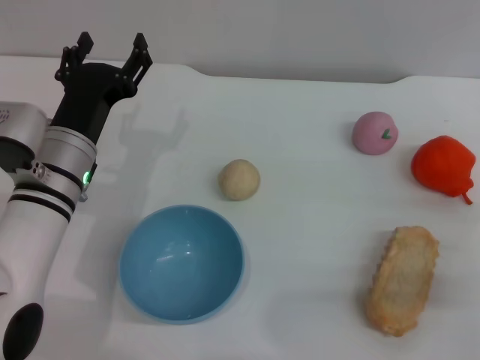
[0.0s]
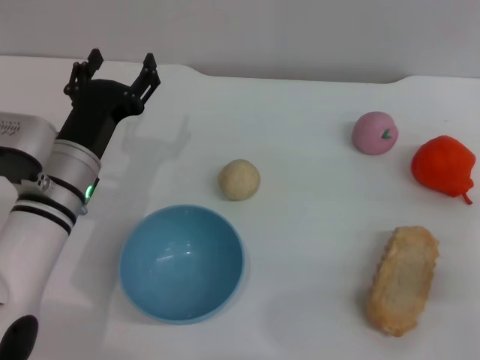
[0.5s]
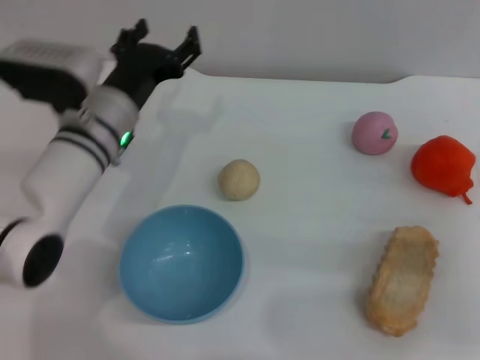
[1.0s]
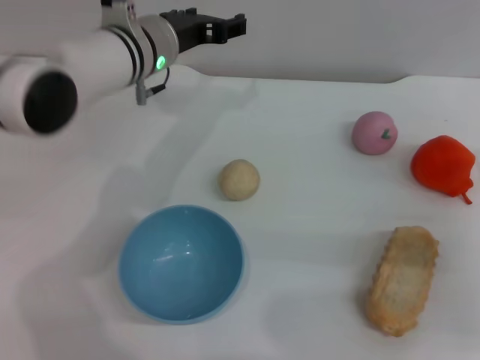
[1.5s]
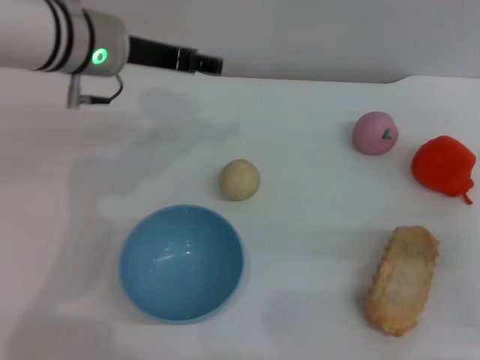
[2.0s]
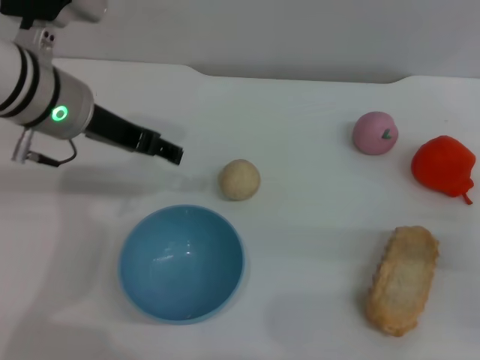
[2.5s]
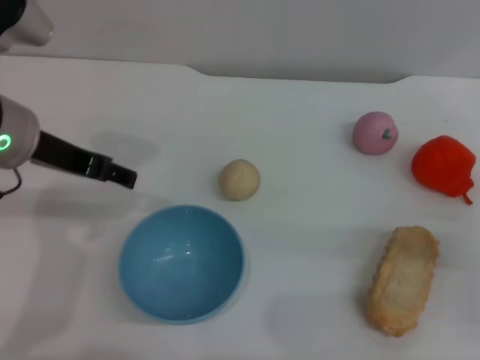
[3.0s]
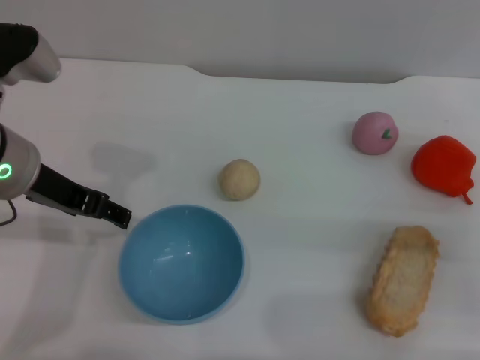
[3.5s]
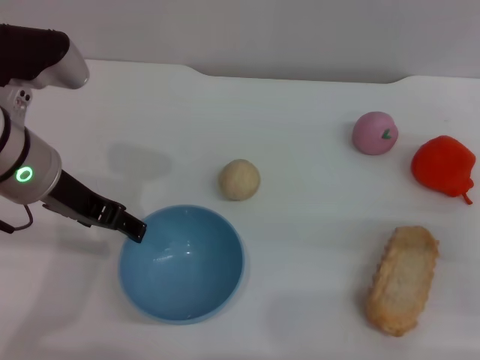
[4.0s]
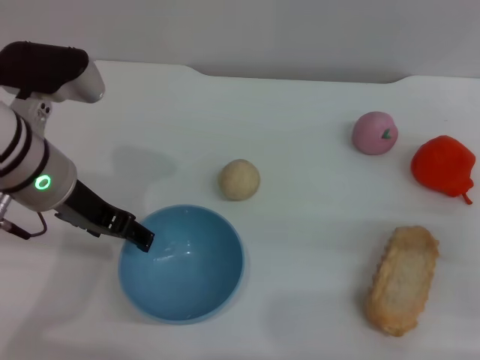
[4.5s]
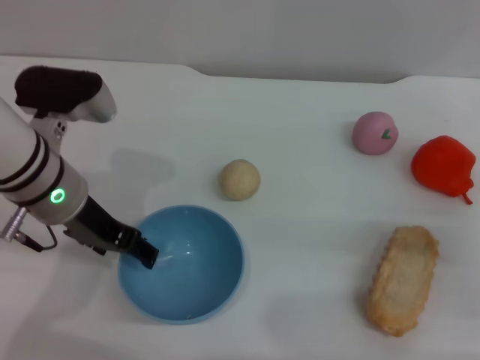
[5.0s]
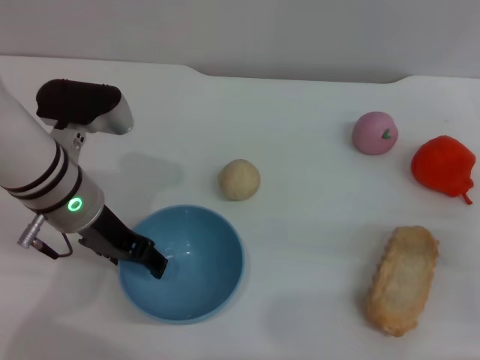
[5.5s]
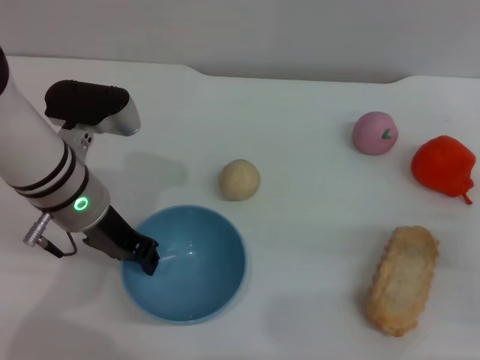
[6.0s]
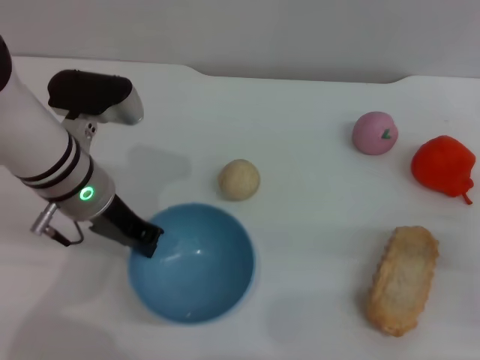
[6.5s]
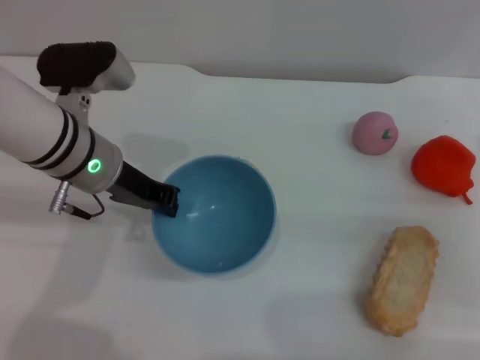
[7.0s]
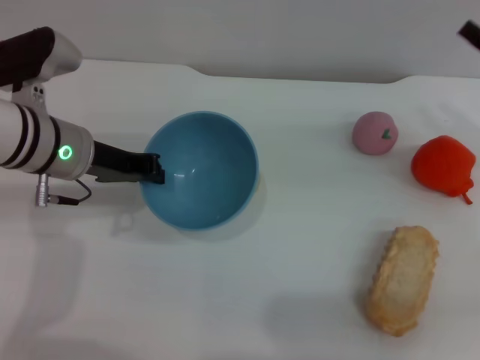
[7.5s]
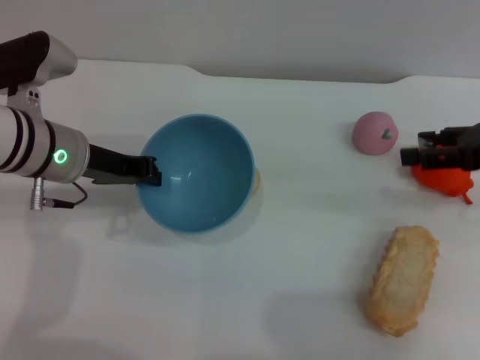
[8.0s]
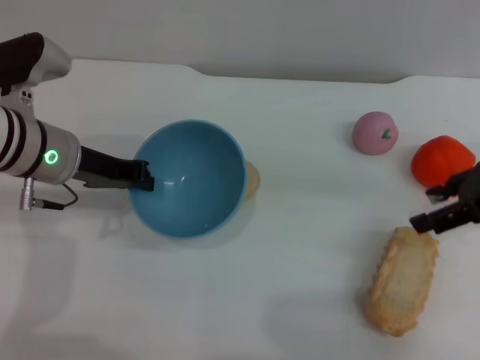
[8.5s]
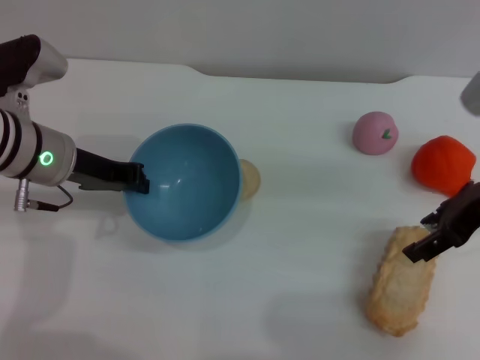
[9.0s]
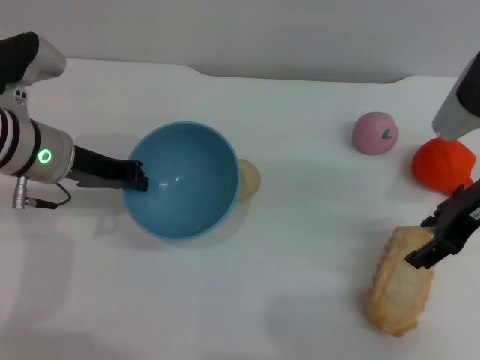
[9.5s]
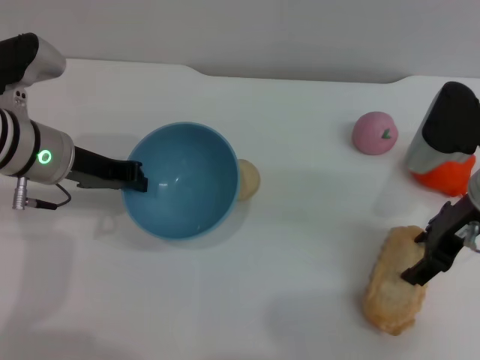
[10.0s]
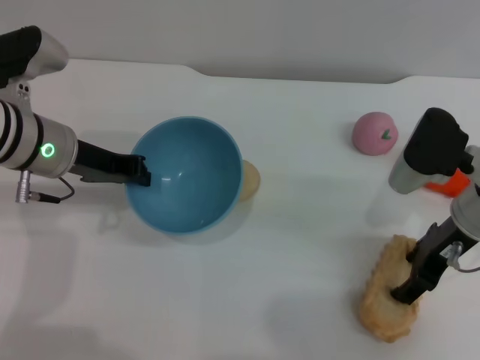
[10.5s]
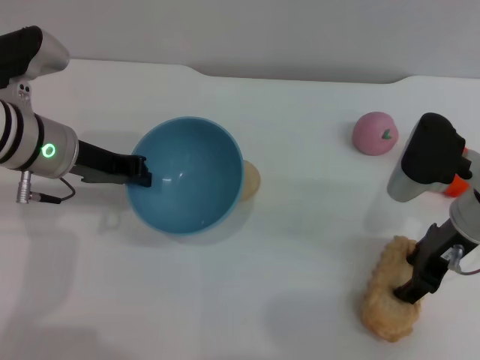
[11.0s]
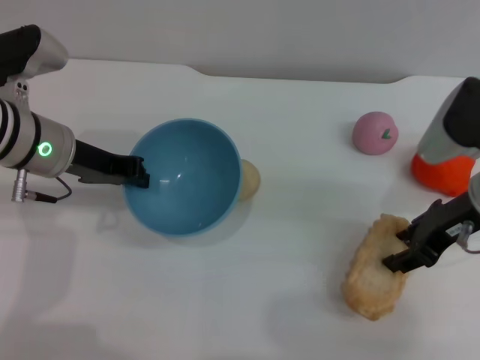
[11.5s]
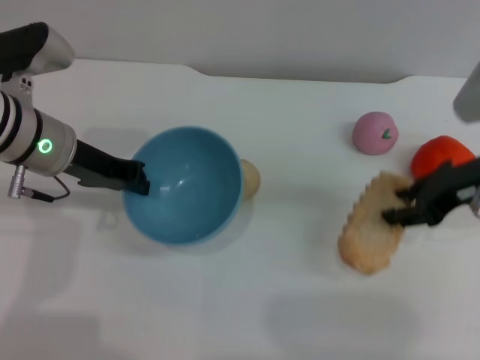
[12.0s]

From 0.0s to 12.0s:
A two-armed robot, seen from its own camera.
Task of the whole recording: put the bread into the blue bowl and pour it out repeatedly.
Step, from 0.0s to 7.5s: Pick up the bowl with the left gripper.
Step, from 8.0s to 12.0s: Pick up the bread with the right gripper.
From 0.0s to 2.0s: The left gripper heads upward and forward, covering some 15 cm.
From 2.0s to 4.0s: The left gripper goes about 10 cm backward.
From 4.0s to 6.0s: The left gripper heads downward, covering approximately 5 cm, and closes its fingers.
From 6.0s to 8.0s: The right gripper heads upward and forward, covering roughly 15 cm. The left gripper closes its fingers.
From 8.0s to 10.0s: The right gripper moves to the left, roughly 10 cm.
From 10.0s to 12.0s: The right gripper closes up.

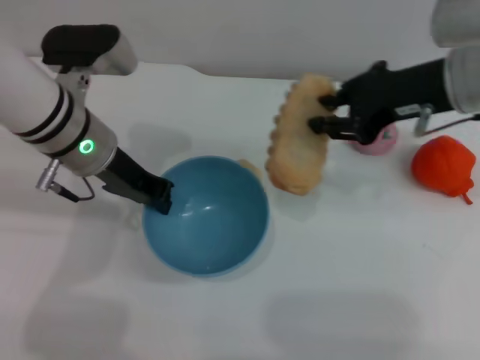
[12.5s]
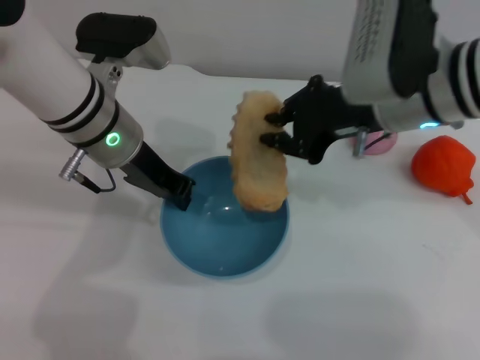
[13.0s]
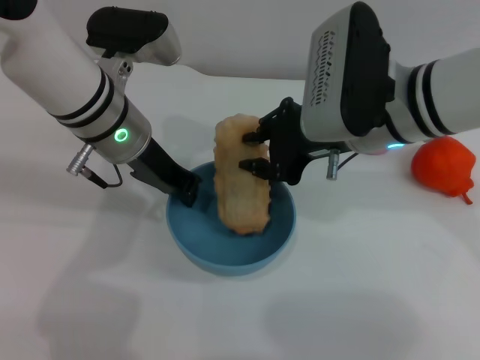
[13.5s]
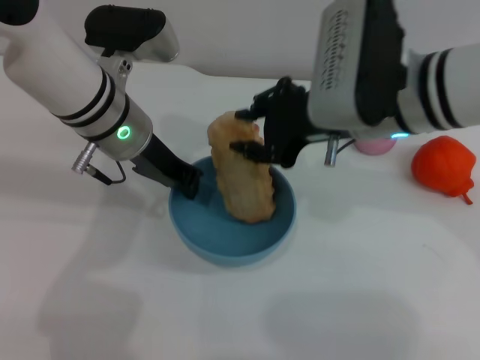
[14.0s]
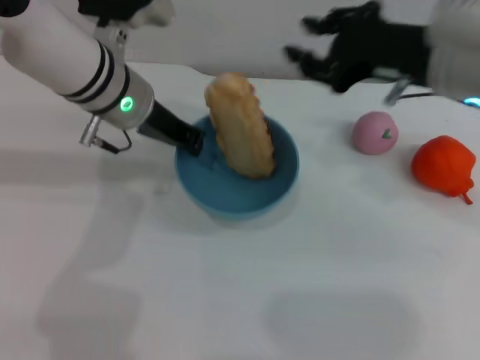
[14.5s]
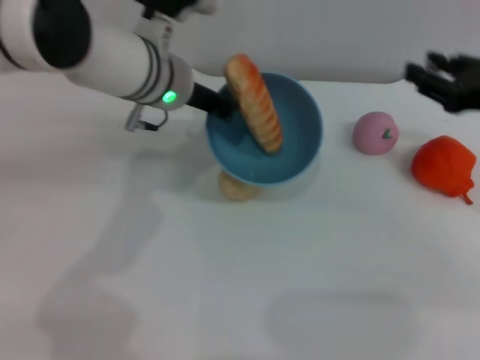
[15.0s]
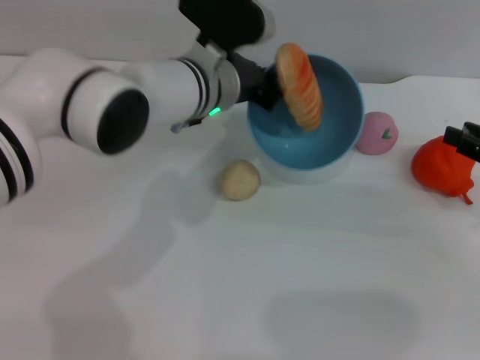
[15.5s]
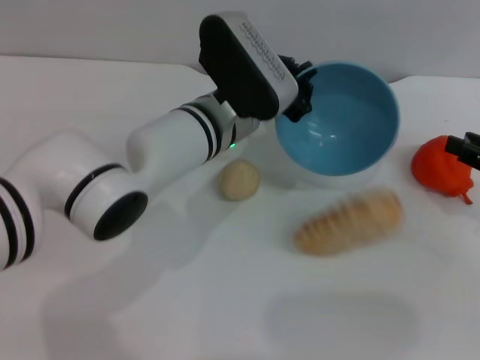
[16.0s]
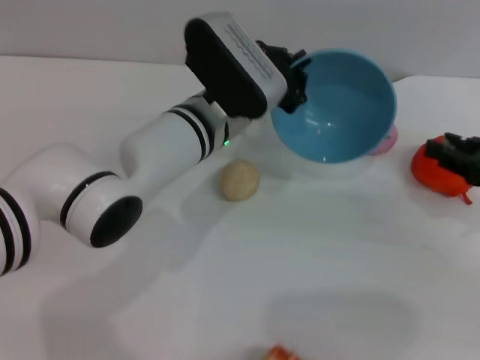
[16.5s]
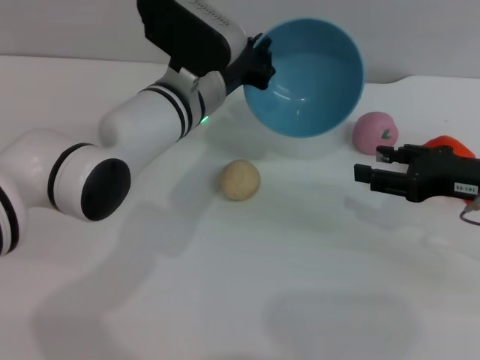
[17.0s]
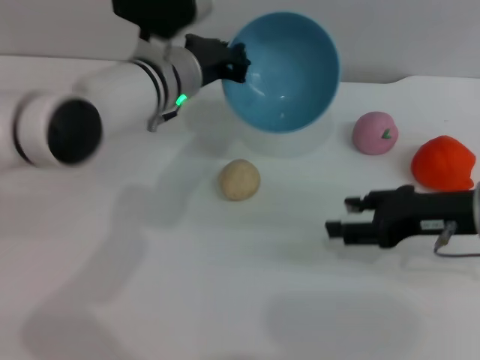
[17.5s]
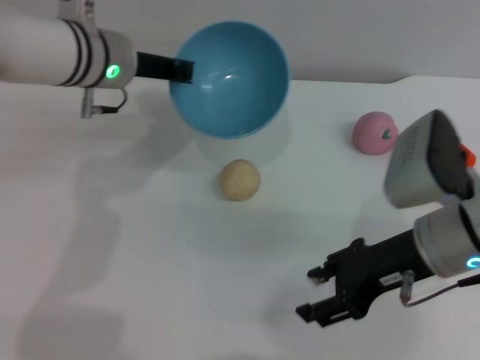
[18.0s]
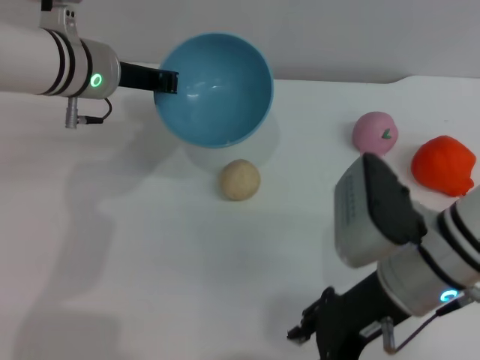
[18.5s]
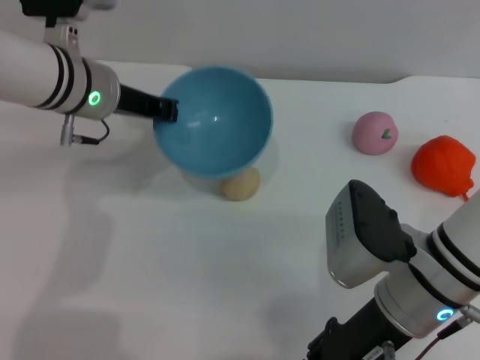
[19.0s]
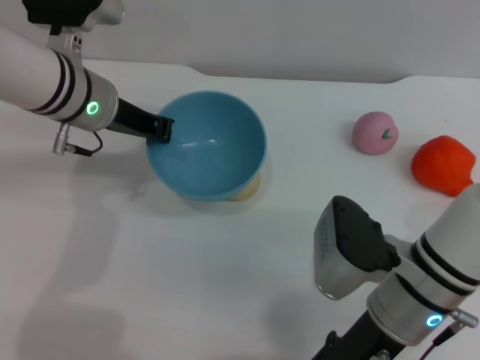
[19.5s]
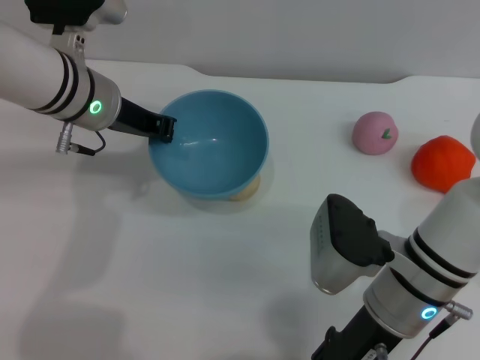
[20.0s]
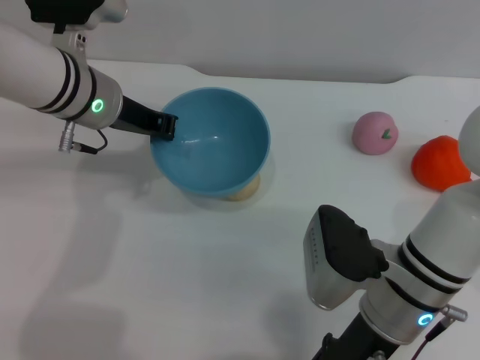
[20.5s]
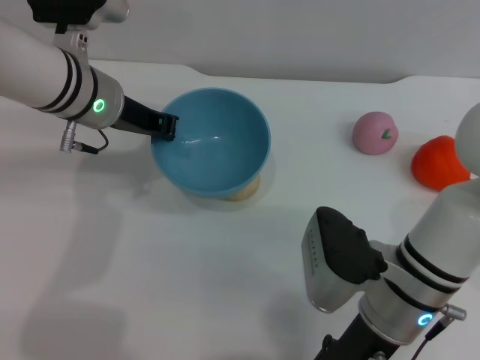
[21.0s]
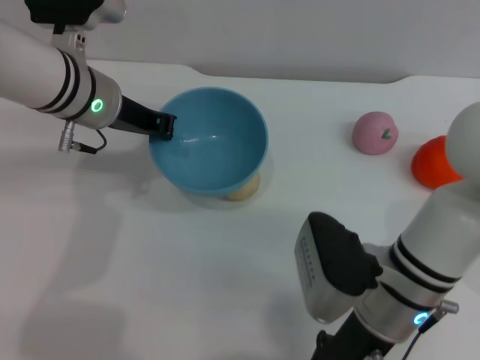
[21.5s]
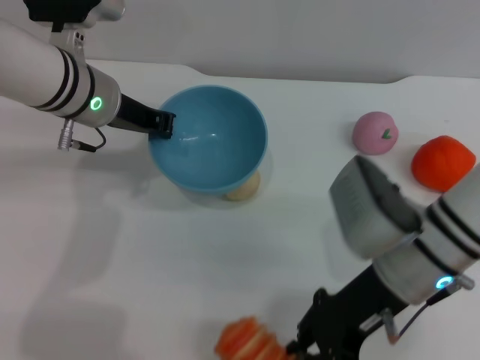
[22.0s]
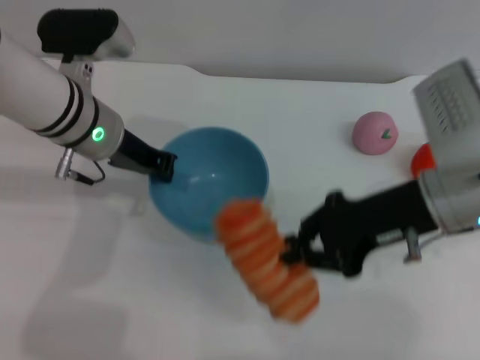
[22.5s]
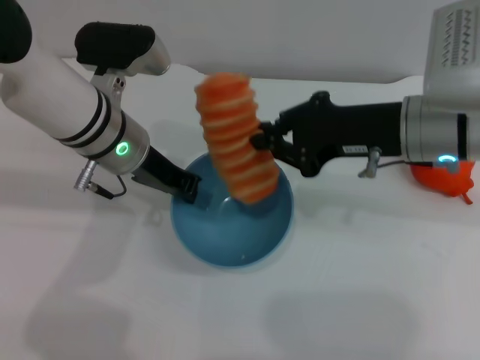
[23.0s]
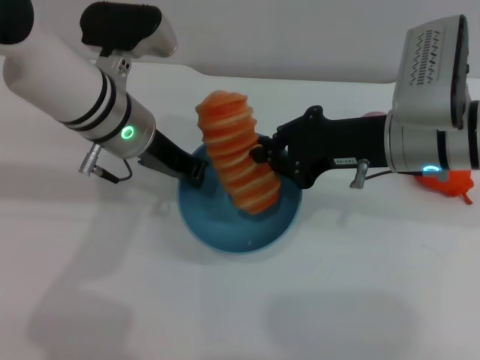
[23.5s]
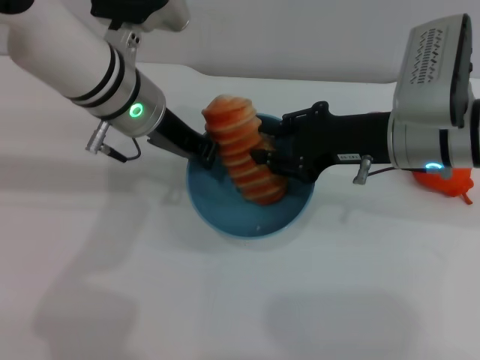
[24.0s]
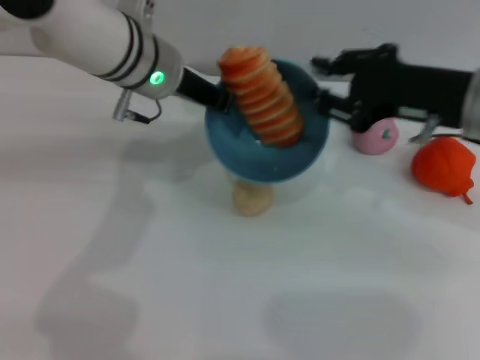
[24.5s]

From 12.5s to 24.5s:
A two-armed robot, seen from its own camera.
Task of the whole recording: put the bread into the blue bowl and pour it out repeatedly.
Step, from 12.5s to 14.0s: Place the bread into the bowl.
Step, from 14.5s to 16.0s: Pour the bread out of the bowl.
Step, from 16.5s to 22.0s: Pick up the bread with the right gripper.
From 12.5s to 14.5s: The left gripper shifts by about 5 cm, while the right gripper moves approximately 10 cm to the left and comes back.
From 14.5s to 16.5s: The right gripper is displaced to the right and downward by about 20 cm. The left gripper is displaced to the right and downward by approximately 10 cm.
From 16.5s to 18.5s: The left gripper is displaced to the left and upward by roughly 15 cm. Meanwhile the right gripper travels to the left by approximately 20 cm, and opens up.
From 20.5s to 22.5s: The right gripper shifts some 10 cm upward, to the right and forward, and closes.
From 22.5s to 24.5s: The left gripper is displaced to the right by some 5 cm, while the right gripper changes place by approximately 5 cm.

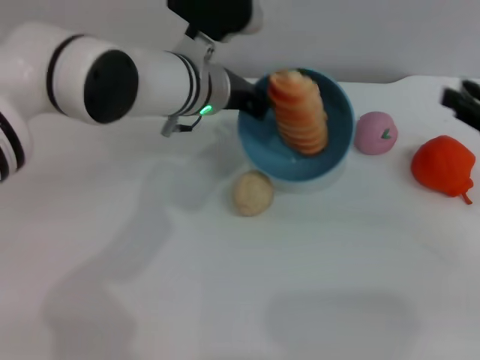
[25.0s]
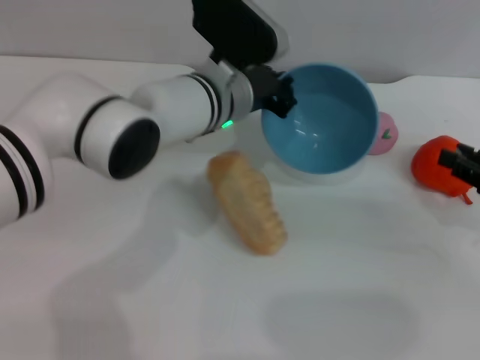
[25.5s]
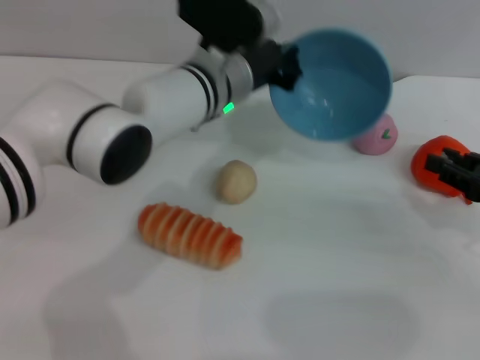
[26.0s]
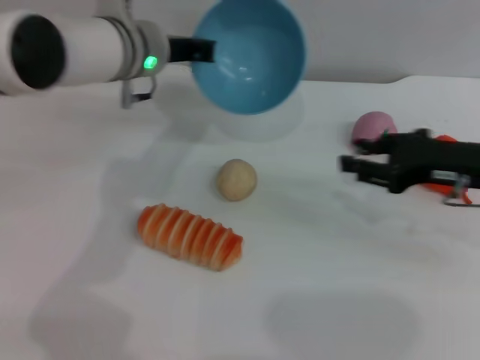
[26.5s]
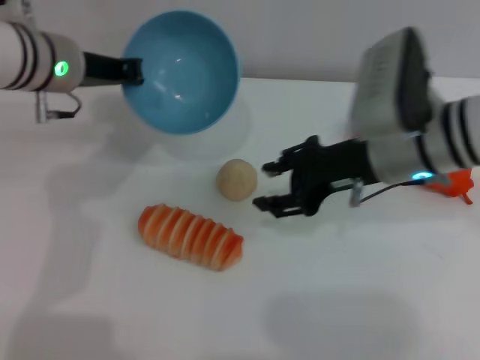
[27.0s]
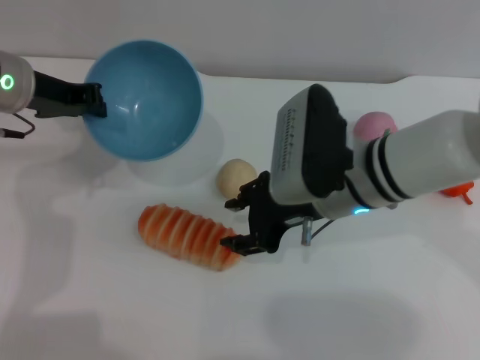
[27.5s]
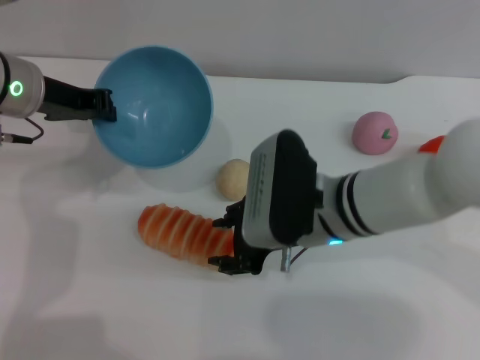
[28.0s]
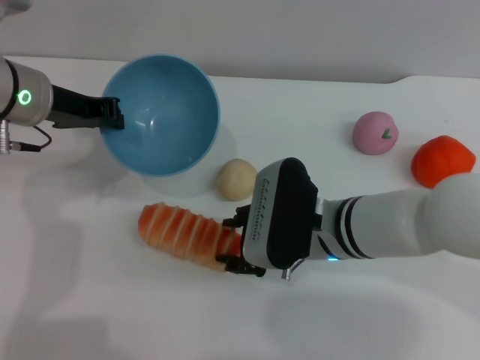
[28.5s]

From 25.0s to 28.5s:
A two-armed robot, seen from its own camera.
Task of the whole recording: put the bread into the blue bowl and pour it out repeatedly.
Step, from 25.0s to 26.0s: Pour the bread out of the bowl.
From 25.0s to 27.0s: The two grippers go roughly 15 cm to the left.
From 27.0s to 28.5s: The right gripper shifts approximately 10 cm downward and to the left.
